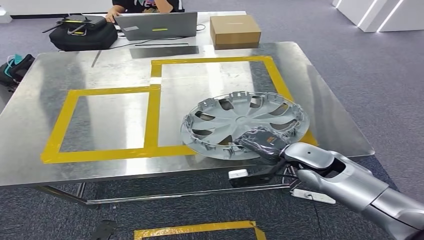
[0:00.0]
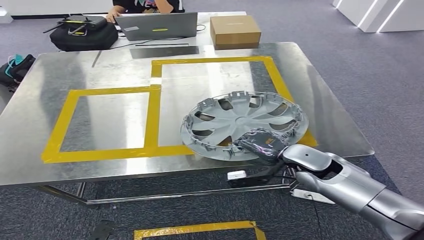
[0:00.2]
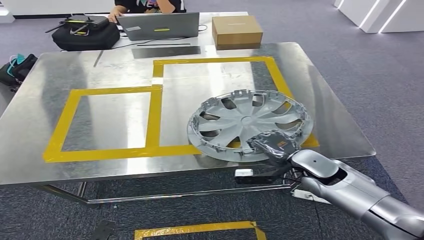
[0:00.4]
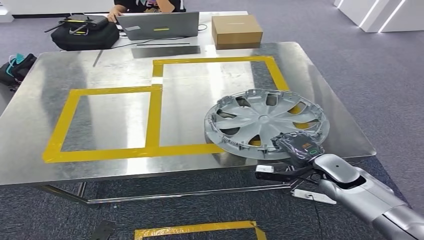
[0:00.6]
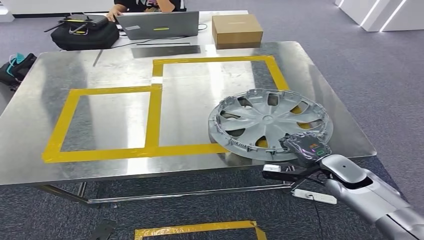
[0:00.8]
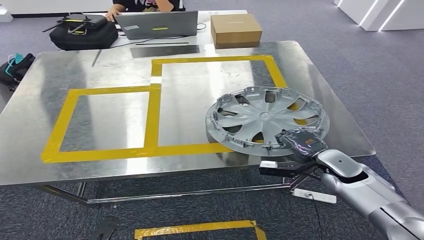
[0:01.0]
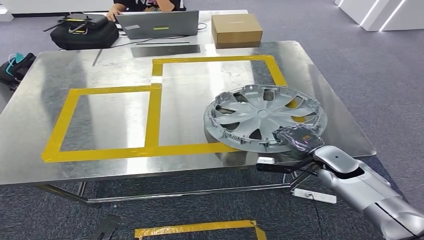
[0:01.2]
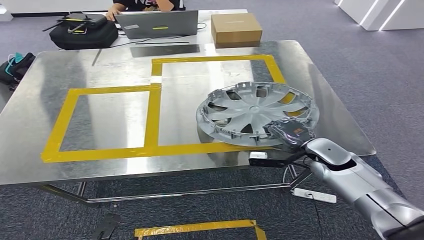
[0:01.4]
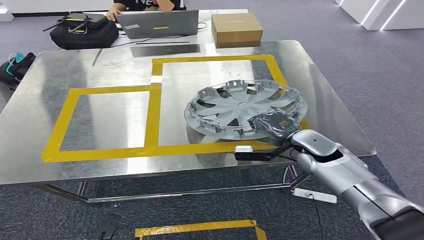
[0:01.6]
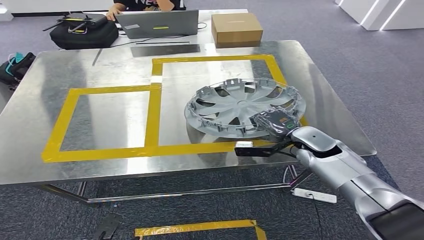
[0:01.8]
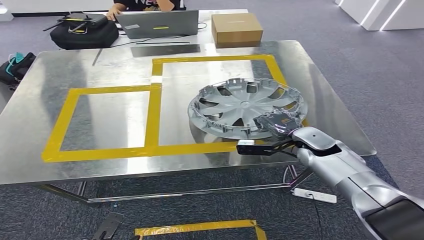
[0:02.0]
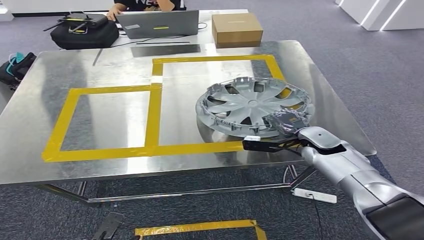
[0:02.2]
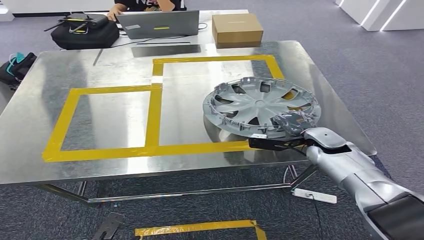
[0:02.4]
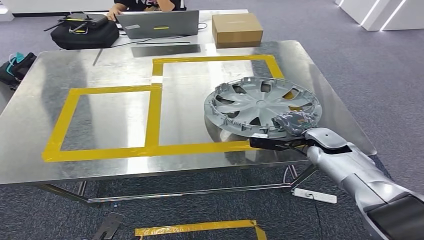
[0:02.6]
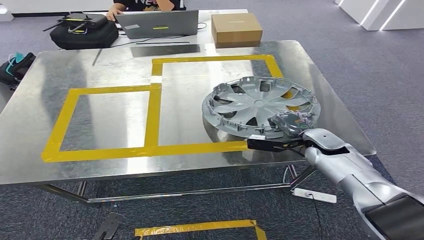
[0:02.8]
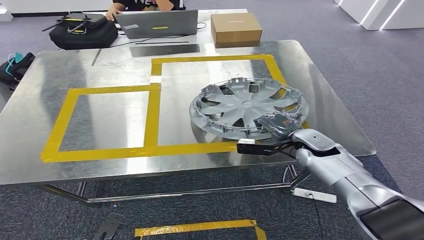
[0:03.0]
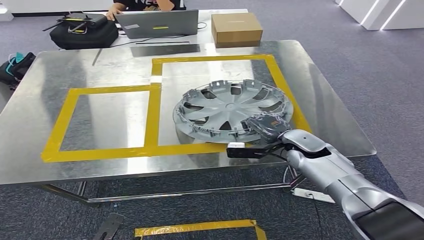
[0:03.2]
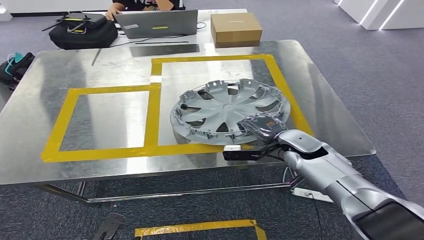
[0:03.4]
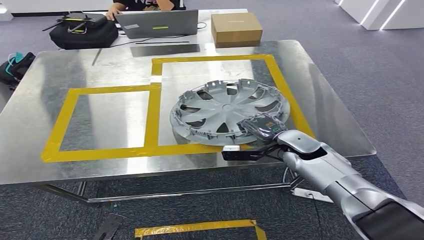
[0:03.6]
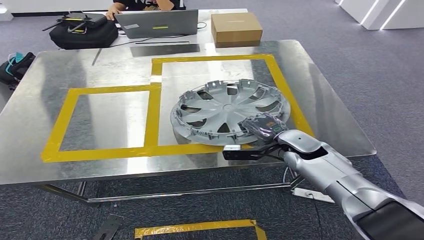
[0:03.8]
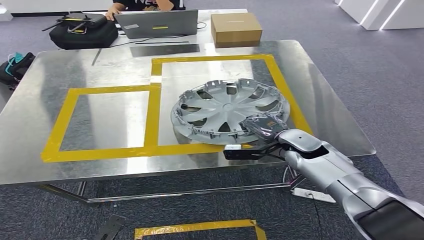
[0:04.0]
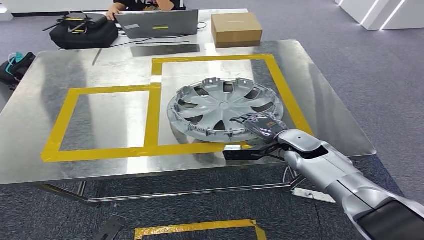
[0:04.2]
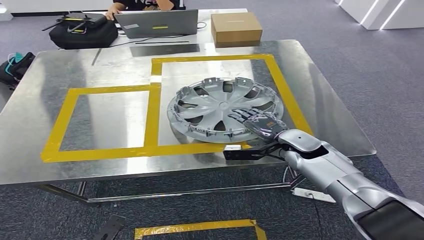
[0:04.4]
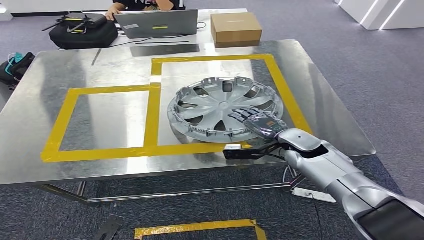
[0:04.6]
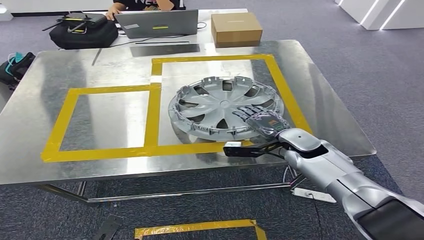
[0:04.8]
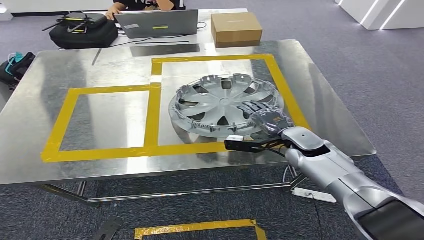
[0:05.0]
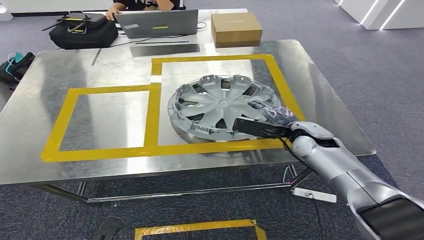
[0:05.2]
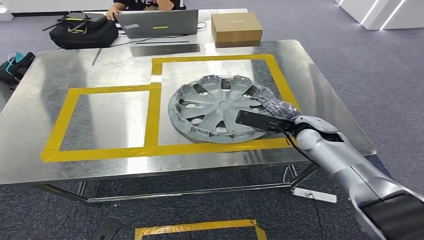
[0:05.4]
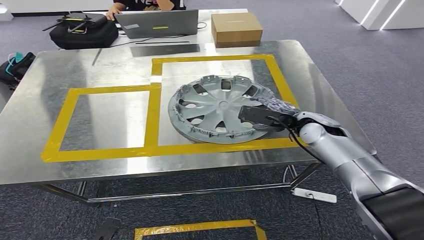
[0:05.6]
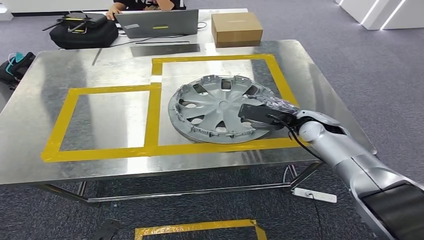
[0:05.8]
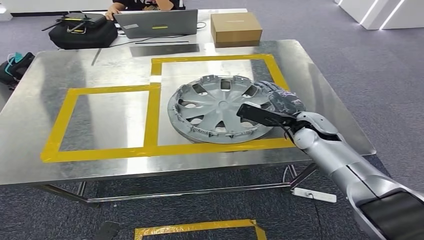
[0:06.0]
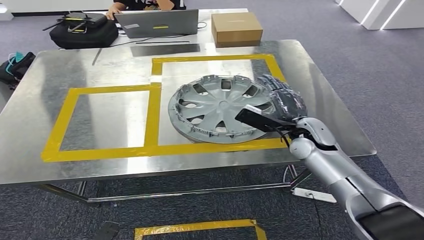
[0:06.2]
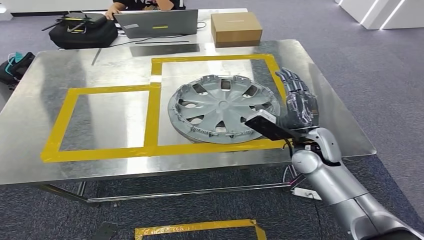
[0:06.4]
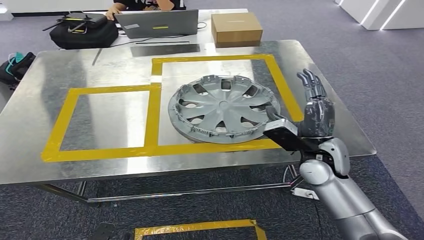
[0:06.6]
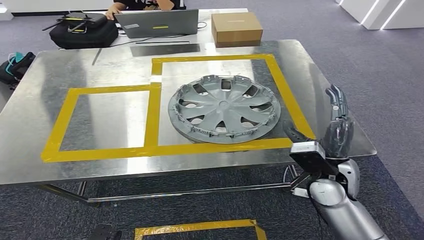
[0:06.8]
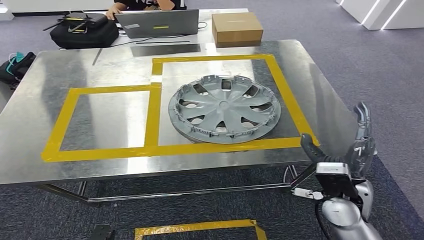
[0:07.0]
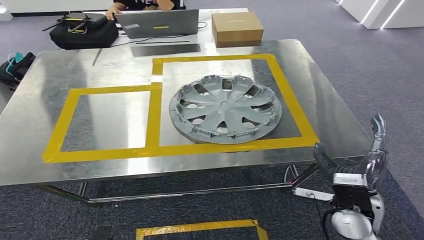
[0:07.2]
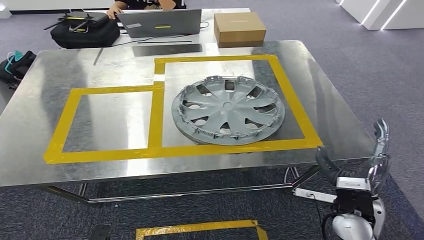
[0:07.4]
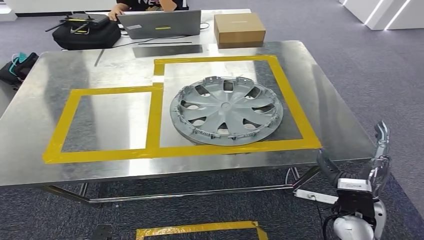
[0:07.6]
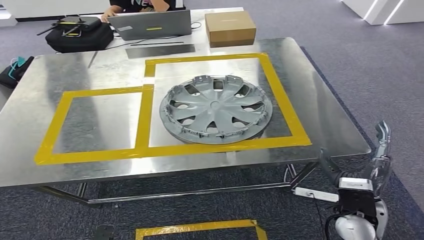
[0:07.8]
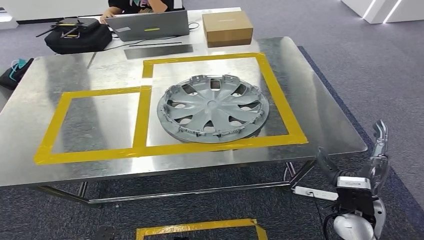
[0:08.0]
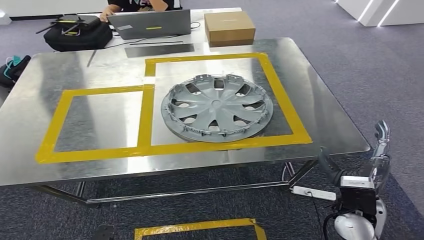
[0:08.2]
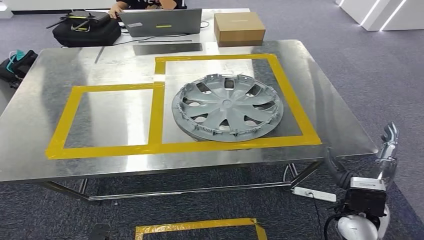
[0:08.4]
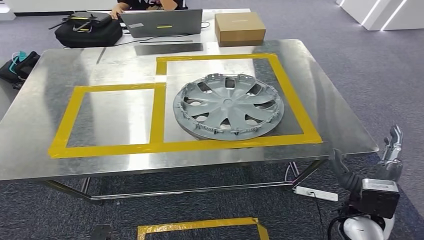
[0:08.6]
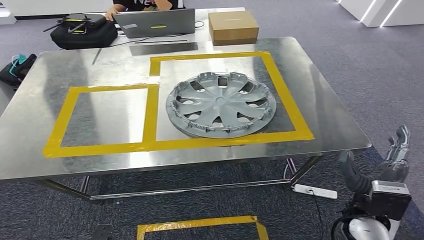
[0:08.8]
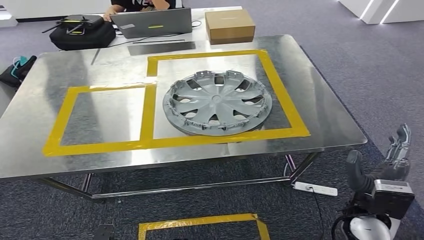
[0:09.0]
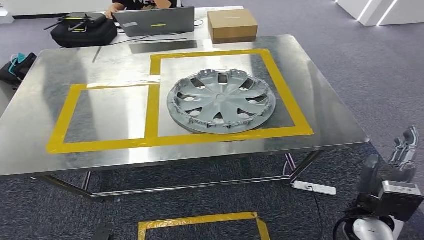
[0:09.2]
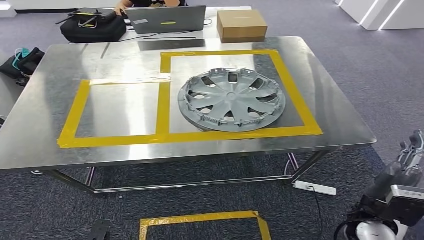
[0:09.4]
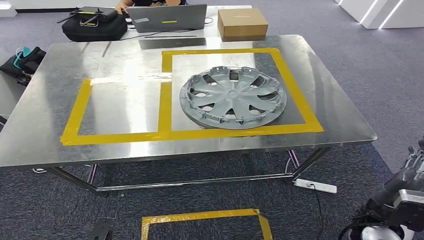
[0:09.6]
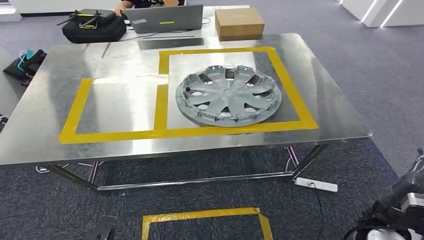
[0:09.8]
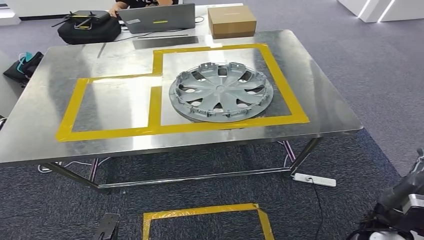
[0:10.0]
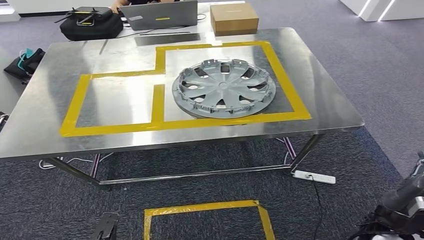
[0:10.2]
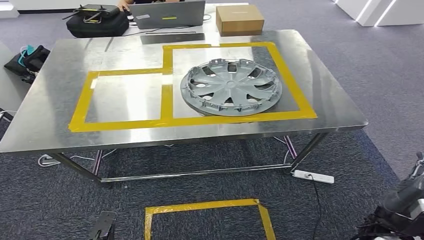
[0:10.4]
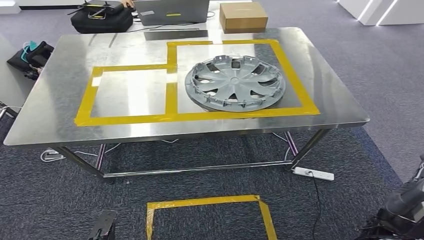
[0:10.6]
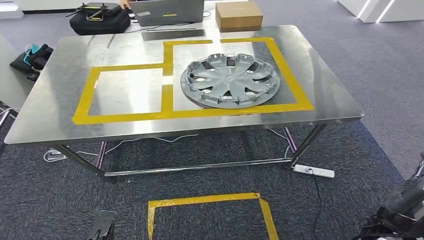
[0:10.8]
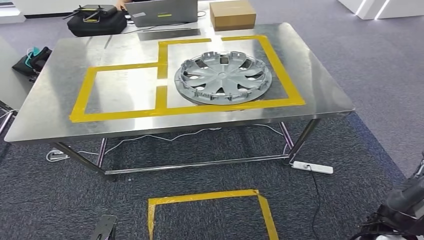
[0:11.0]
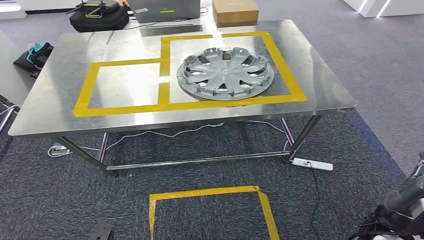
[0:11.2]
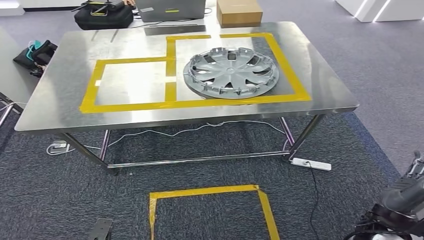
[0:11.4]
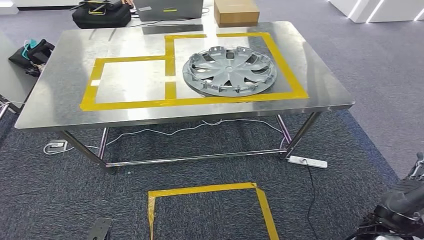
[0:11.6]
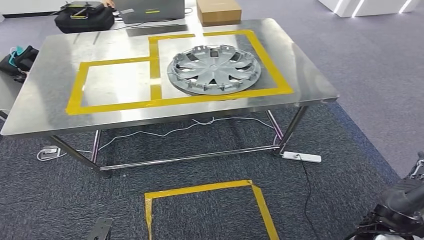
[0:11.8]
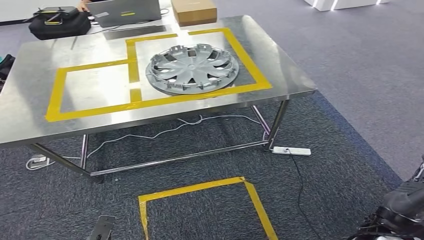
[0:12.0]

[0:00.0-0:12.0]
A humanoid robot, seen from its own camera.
Step, 0:00.0 to 0:07.2: Insert the small component into the corresponding slot on the workbench.
0:00.0 to 0:01.6: The right hand moves some 10 cm to the right and comes back.
0:03.0 to 0:04.4: The hands move only a little.
0:04.4 to 0:06.0: The right hand moves approximately 5 cm.

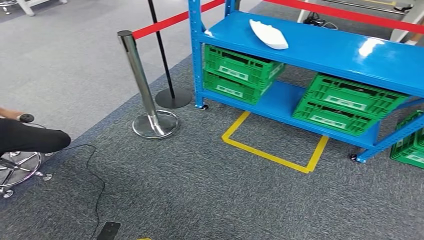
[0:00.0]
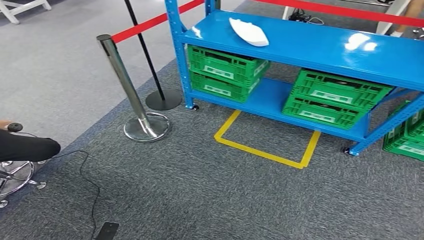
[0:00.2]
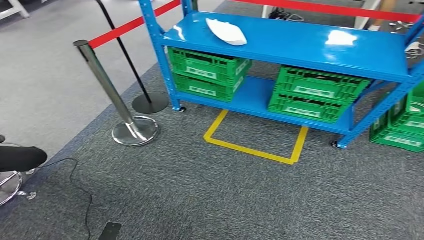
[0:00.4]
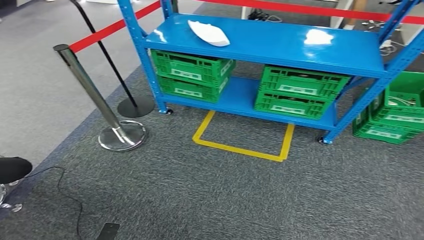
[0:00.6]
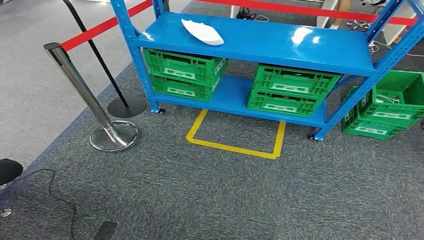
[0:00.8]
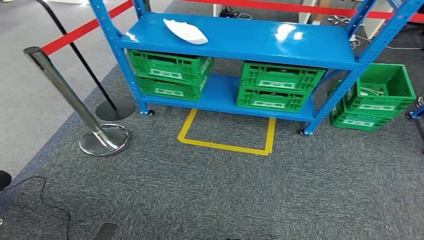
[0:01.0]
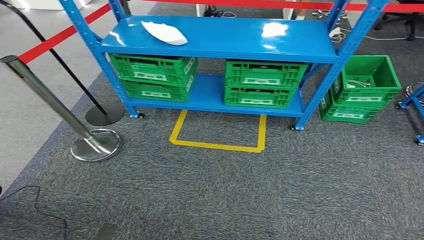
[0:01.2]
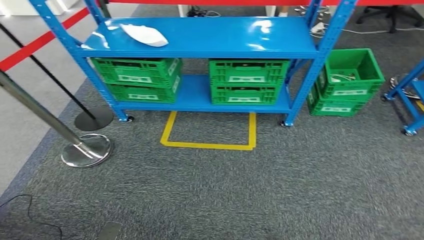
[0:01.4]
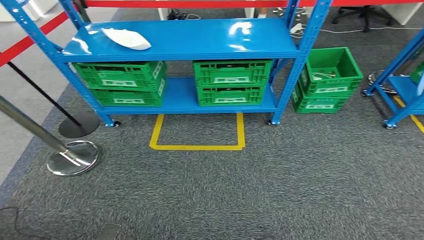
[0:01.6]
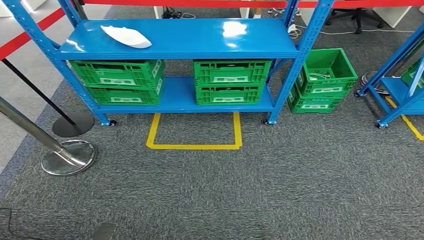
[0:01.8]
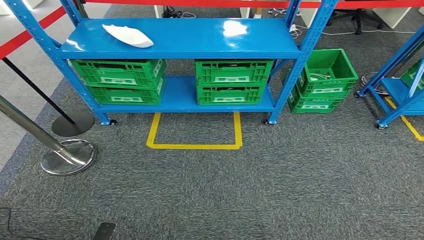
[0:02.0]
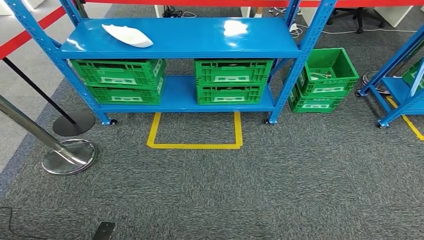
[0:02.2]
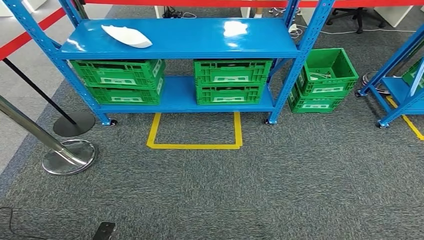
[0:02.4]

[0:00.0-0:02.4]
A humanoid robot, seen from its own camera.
Step, 0:00.0 to 0:02.4: Return to the initial position at the workbench.
